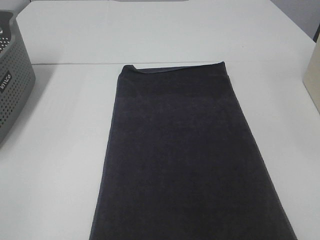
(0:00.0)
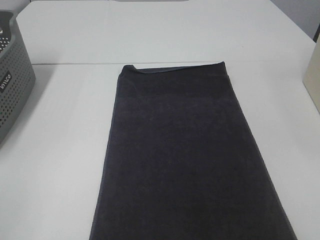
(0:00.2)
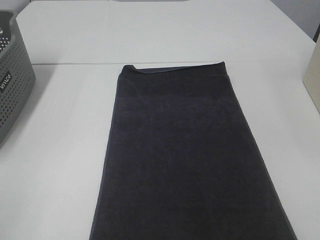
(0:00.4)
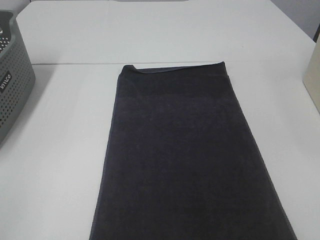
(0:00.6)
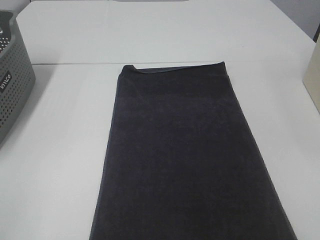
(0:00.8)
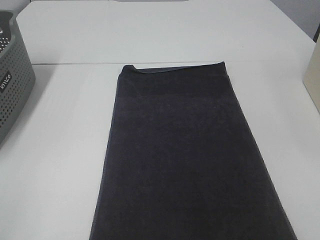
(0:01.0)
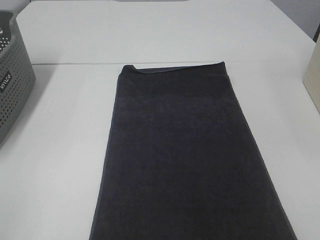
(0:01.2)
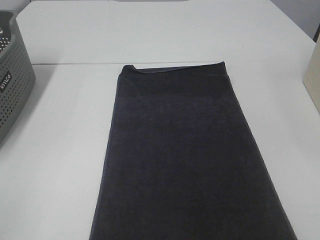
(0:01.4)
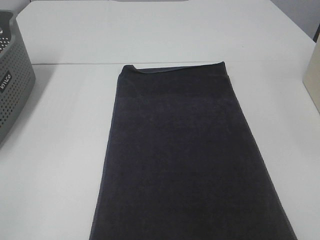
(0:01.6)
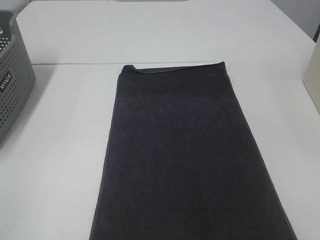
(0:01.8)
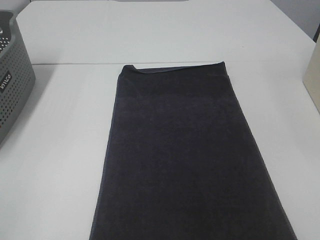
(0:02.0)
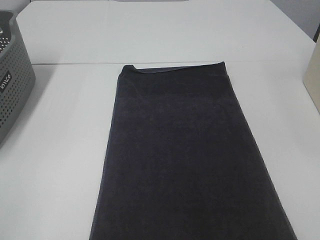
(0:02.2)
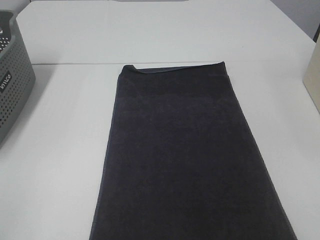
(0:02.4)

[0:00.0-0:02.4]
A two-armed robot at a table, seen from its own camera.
Task of the whole recording: Remove the towel and place it.
0:01.2 to 0:02.4: Both grippers stay about where they are.

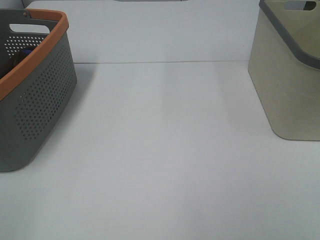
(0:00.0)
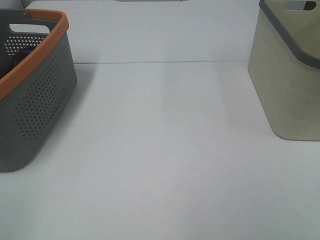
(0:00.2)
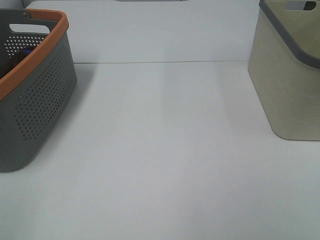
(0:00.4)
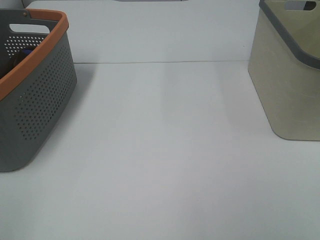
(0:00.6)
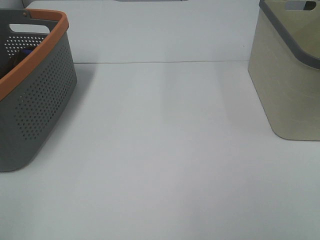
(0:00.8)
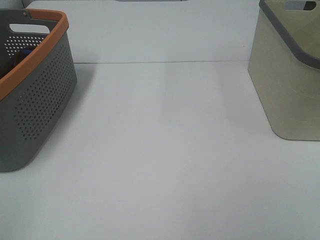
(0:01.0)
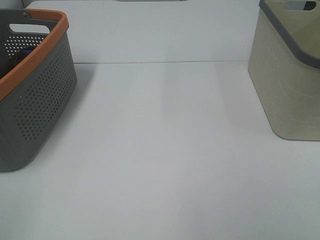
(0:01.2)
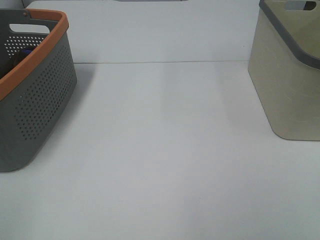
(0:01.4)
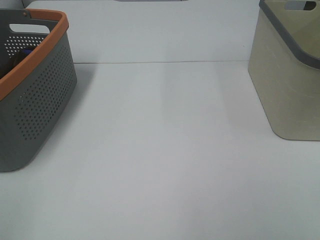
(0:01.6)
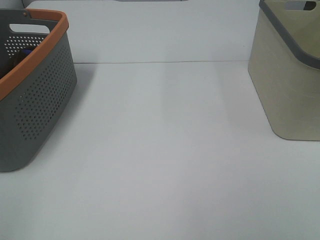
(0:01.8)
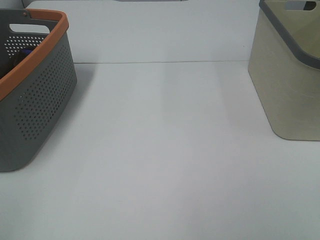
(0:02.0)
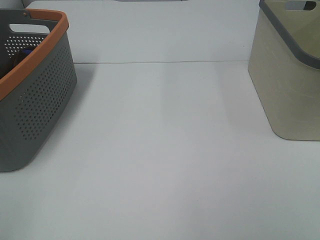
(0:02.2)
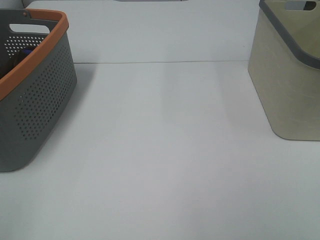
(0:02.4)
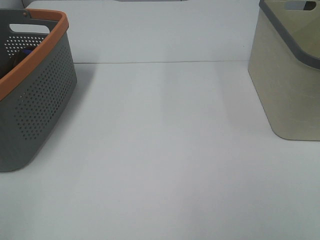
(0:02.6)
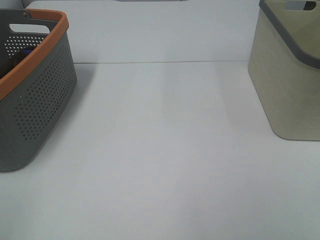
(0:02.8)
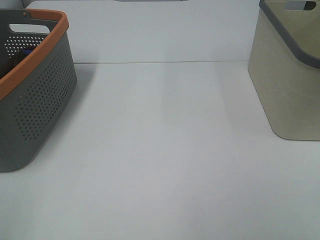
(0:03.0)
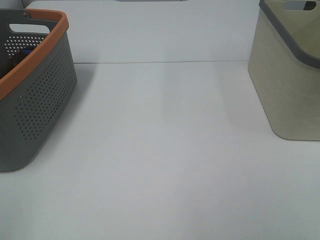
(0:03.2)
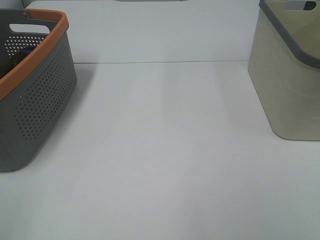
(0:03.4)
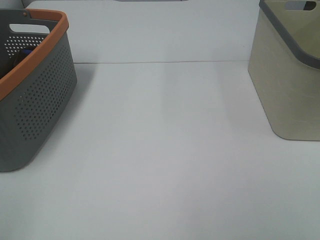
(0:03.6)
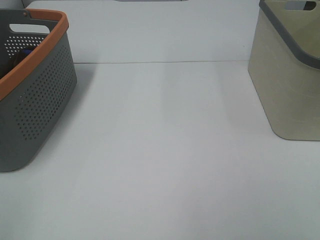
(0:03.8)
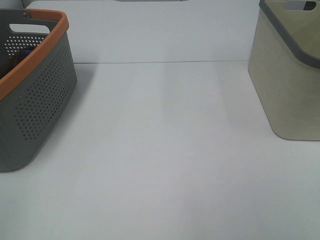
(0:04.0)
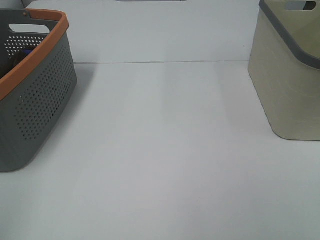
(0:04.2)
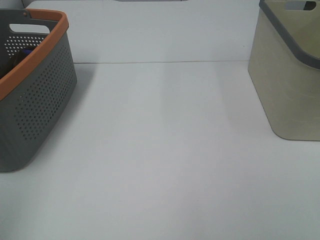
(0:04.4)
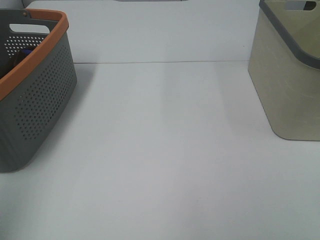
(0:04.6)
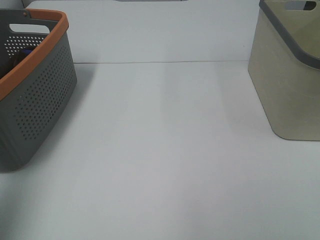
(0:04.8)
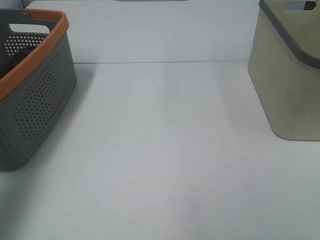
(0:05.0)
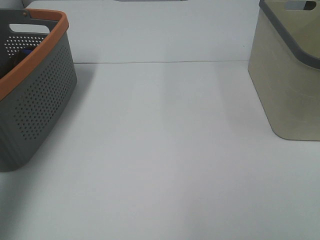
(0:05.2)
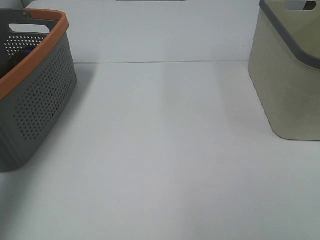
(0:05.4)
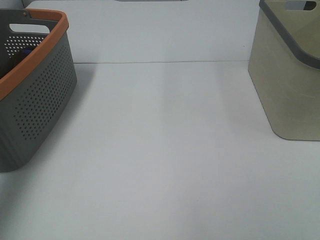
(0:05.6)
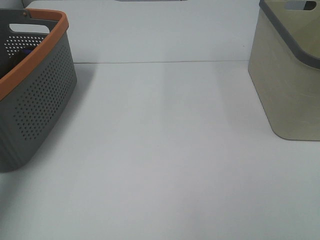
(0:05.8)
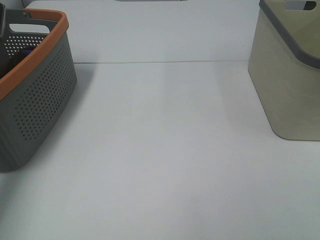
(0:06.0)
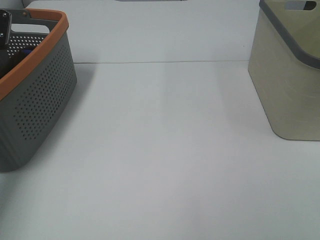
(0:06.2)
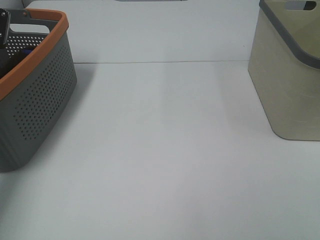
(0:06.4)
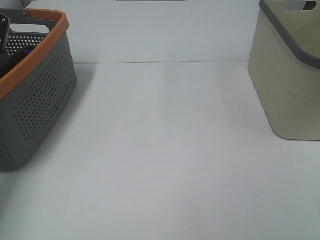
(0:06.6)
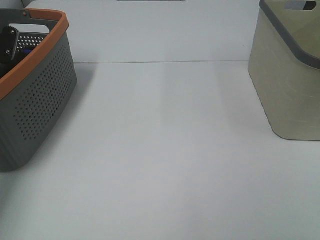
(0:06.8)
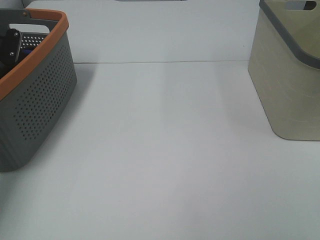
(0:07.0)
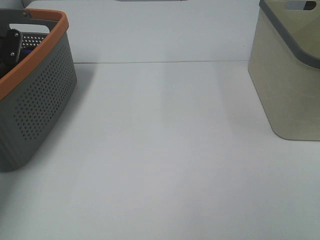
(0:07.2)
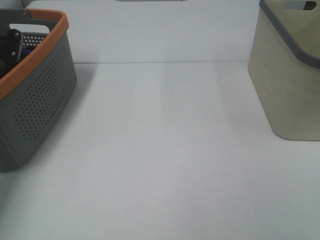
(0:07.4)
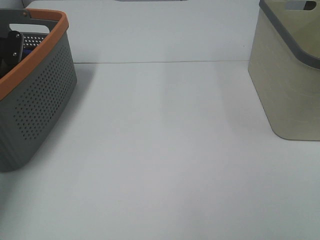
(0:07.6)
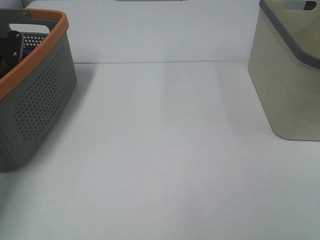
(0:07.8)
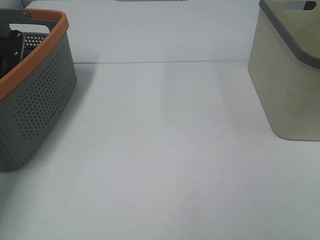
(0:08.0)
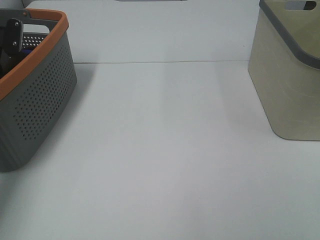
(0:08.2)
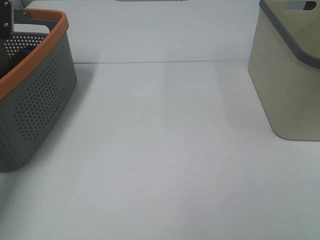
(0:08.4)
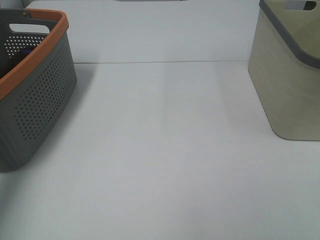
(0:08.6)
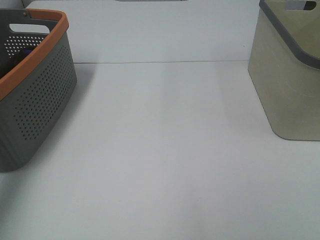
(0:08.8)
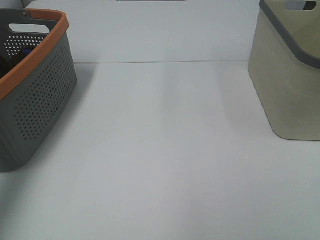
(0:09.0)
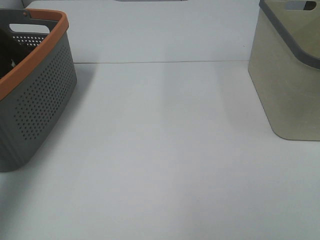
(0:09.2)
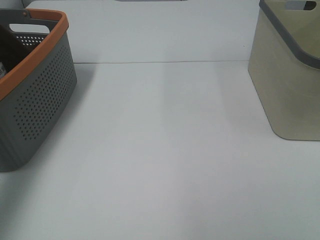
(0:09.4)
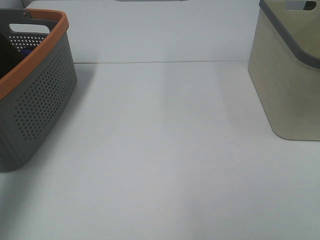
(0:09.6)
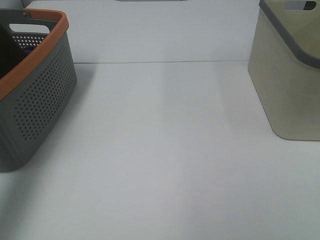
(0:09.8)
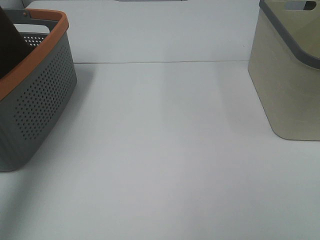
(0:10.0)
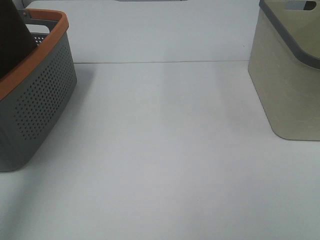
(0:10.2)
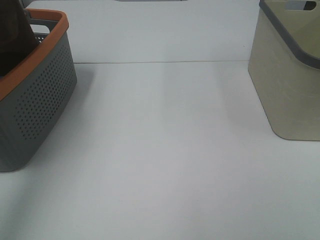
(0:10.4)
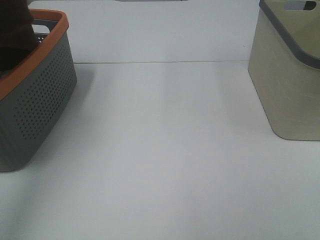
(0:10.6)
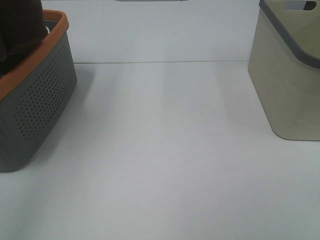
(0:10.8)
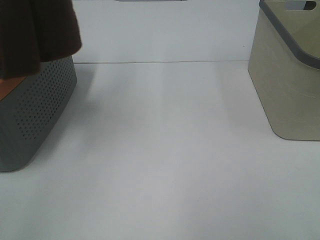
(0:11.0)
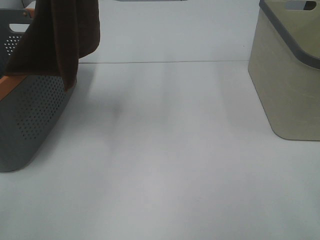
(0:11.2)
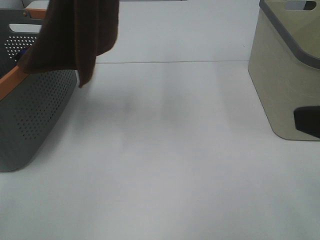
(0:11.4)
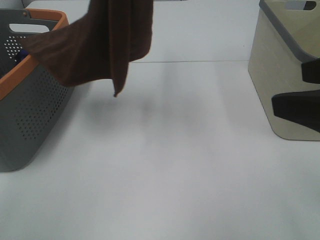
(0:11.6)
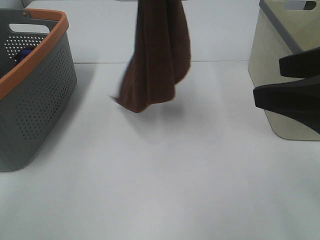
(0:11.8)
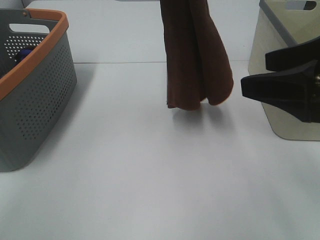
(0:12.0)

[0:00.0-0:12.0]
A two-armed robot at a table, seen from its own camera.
Task of the whole recording: Remove the towel and place it.
0:00.0 to 0:03.0: Neither gripper changes place.
0:04.4 to 0:06.0: The left gripper shifts some 35 cm forward.
0:09.0 to 0:10.4: The left gripper moves upward and backward, some 20 cm.
0:10.4 to 0:12.0: The right gripper moves forward, about 20 cm; the left gripper is displaced to the right and downward by some 25 cm.

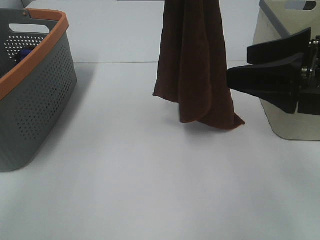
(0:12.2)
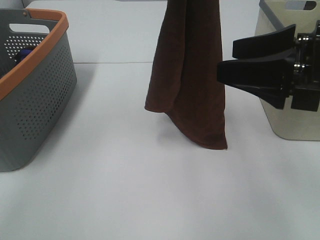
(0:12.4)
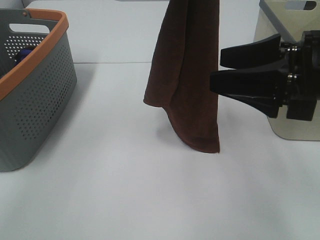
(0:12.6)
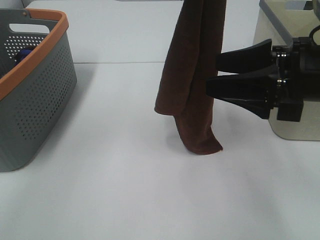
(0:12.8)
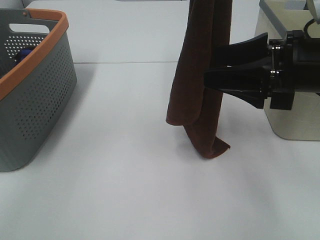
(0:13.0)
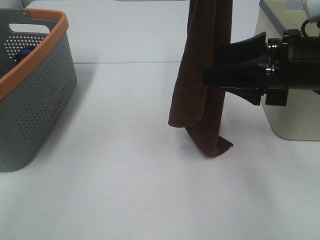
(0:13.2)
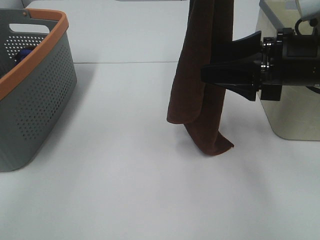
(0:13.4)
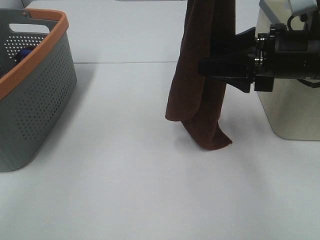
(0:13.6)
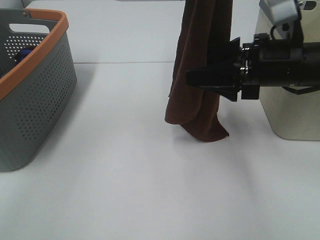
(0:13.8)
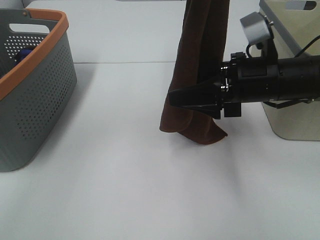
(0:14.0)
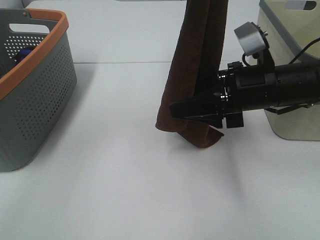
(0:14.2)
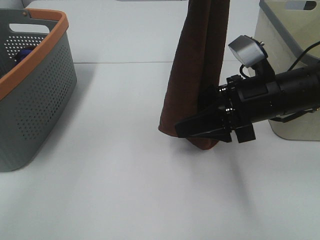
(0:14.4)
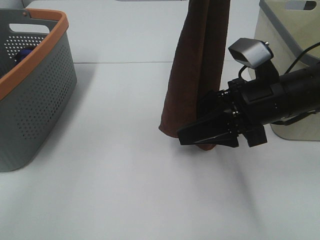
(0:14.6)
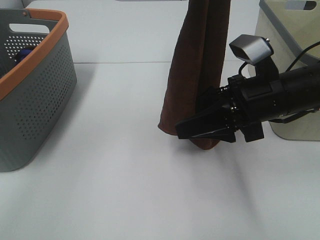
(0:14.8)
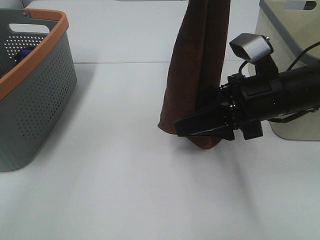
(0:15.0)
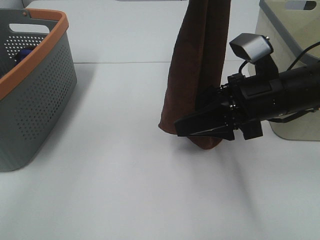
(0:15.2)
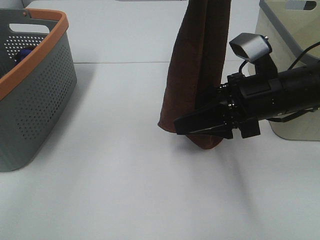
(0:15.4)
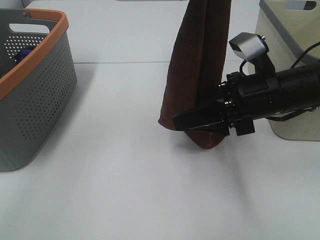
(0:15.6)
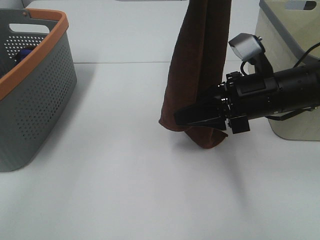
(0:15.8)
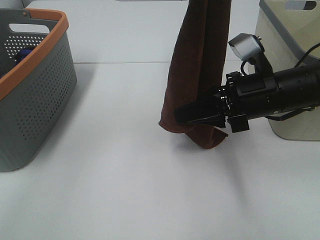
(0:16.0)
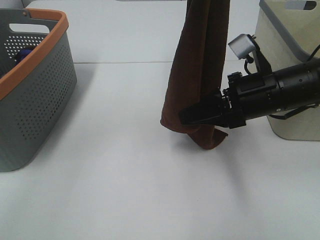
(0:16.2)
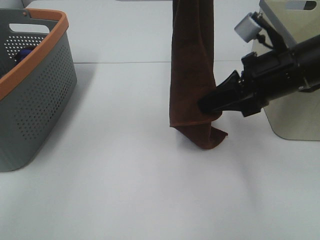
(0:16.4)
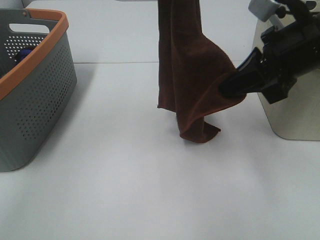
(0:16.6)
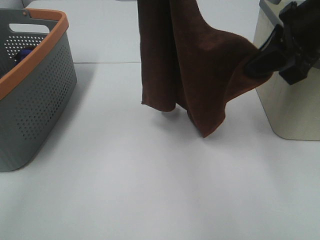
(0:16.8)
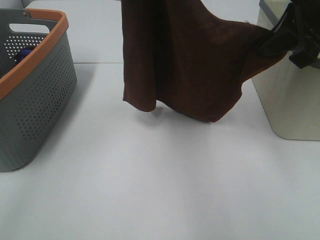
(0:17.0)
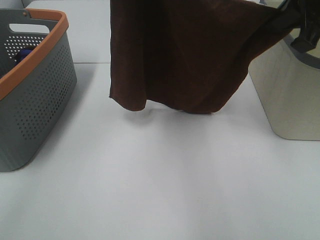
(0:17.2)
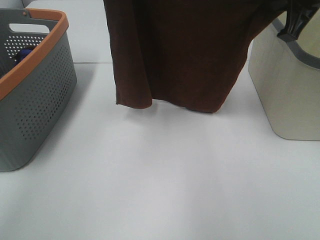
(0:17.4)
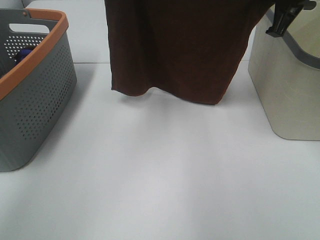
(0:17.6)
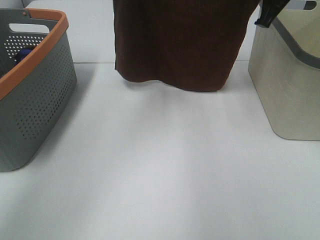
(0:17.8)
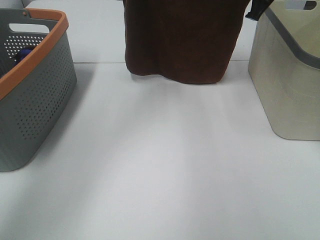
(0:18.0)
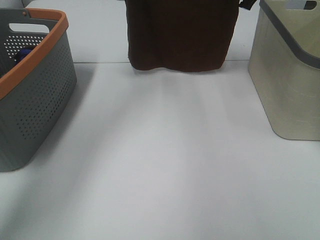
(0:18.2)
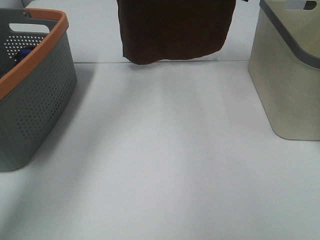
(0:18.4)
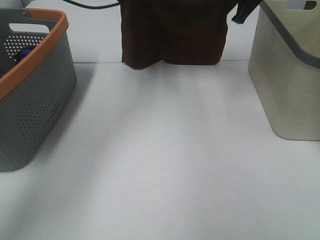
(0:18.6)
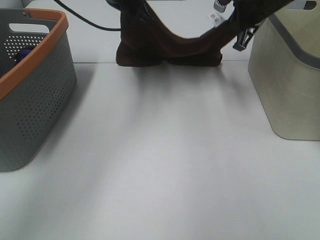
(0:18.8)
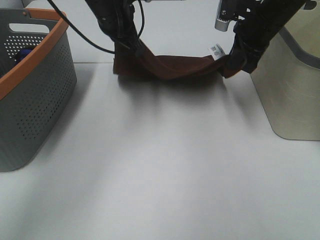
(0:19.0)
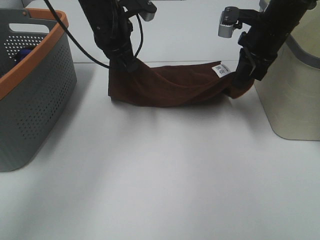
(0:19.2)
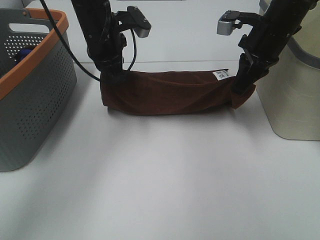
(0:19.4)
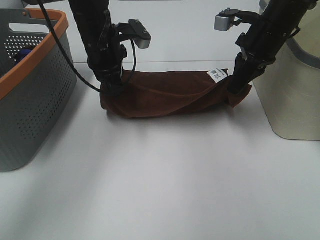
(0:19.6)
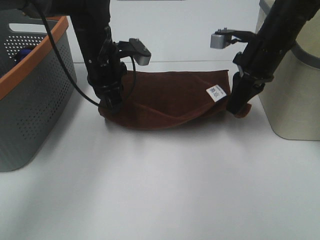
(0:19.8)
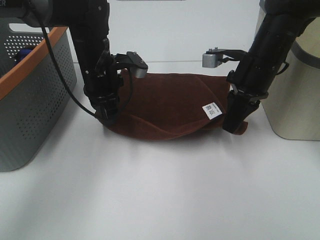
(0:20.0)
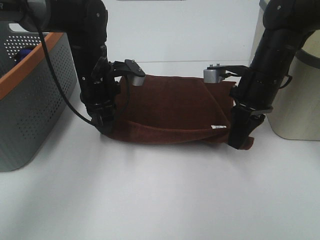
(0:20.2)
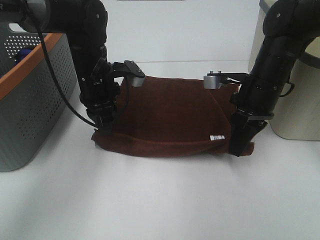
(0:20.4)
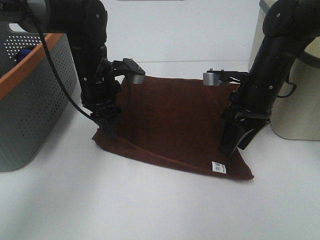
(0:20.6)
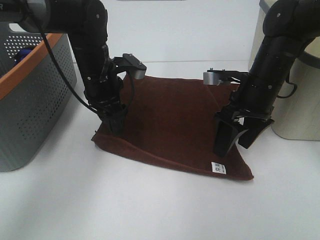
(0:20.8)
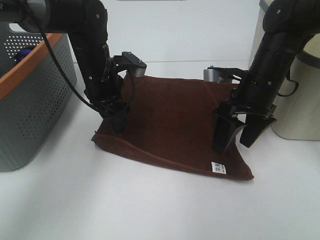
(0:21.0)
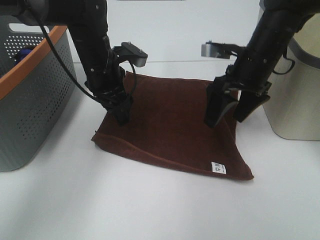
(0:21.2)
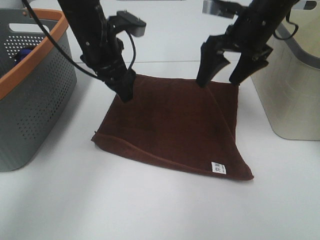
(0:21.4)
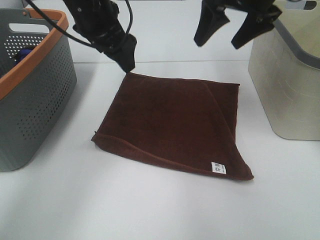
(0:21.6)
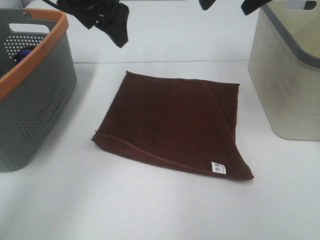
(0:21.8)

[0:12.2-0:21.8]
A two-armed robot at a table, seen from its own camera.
Task of the whole recording: Remove the towel and place it.
Step, 0:14.0 to 0:16.4: Right hand: spread the brown towel flat on the table.
0:12.2 to 0:13.8: The right gripper moves forward and downward, roughly 10 cm.
0:15.4 to 0:17.0: The right gripper travels upward by approximately 15 cm, and closes up.
0:17.0 to 0:18.6: The left gripper is displaced forward and downward by about 20 cm. Meanwhile the right gripper goes about 20 cm forward.
0:18.6 to 0:20.2: The right gripper goes roughly 20 cm backward and downward. Meanwhile the left gripper heads downward and backward, covering roughly 20 cm.
0:20.2 to 0:21.8: Both grippers move upward, about 20 cm. The right gripper opens its fingers. The left gripper opens its fingers.
